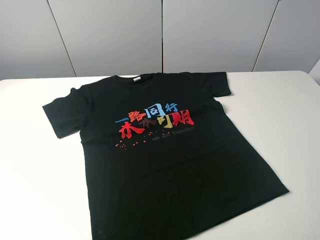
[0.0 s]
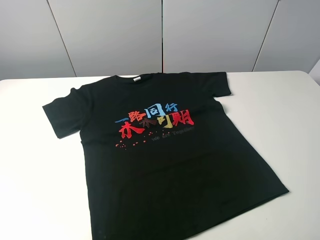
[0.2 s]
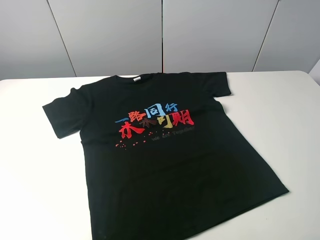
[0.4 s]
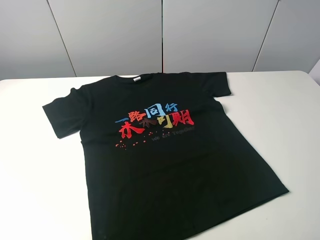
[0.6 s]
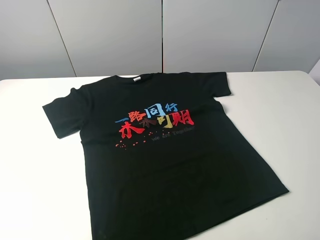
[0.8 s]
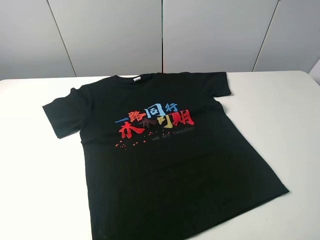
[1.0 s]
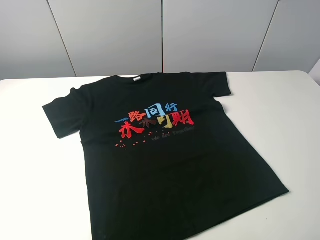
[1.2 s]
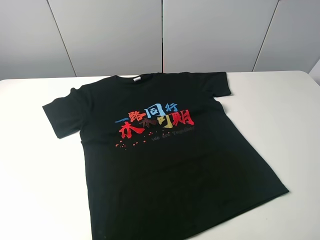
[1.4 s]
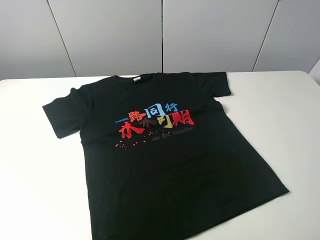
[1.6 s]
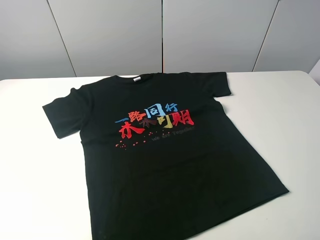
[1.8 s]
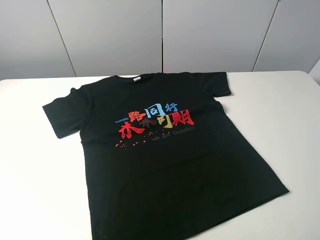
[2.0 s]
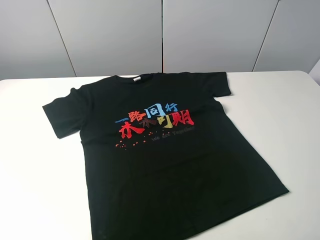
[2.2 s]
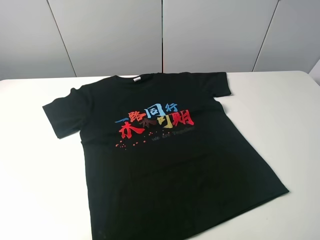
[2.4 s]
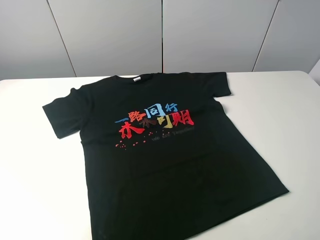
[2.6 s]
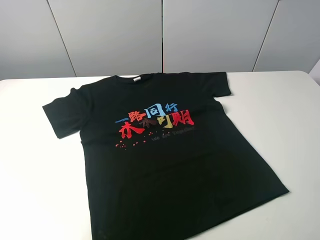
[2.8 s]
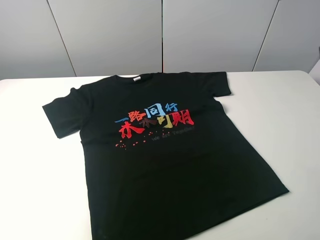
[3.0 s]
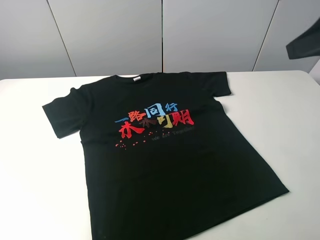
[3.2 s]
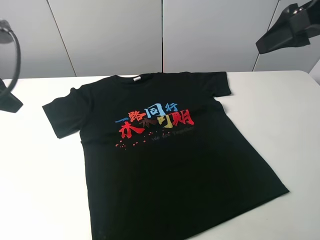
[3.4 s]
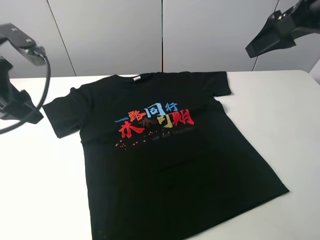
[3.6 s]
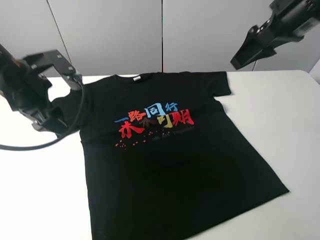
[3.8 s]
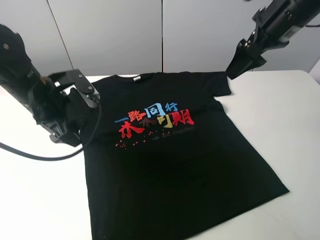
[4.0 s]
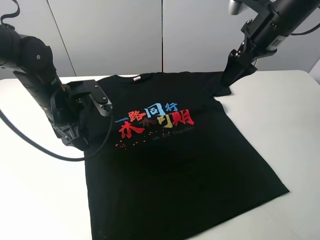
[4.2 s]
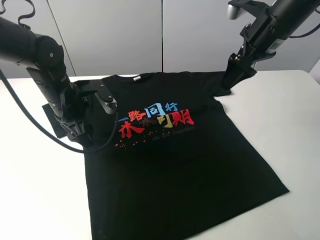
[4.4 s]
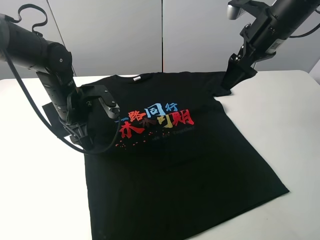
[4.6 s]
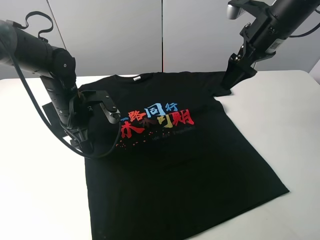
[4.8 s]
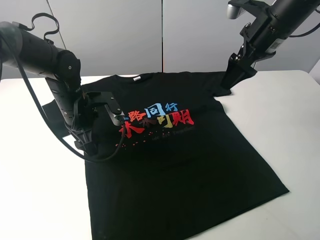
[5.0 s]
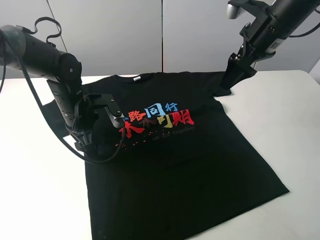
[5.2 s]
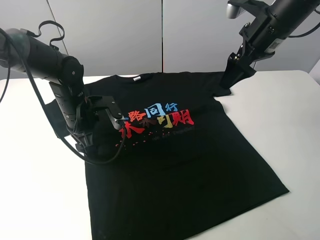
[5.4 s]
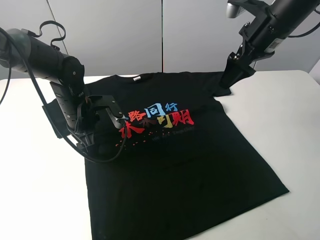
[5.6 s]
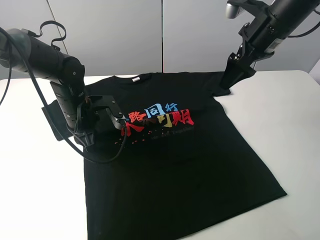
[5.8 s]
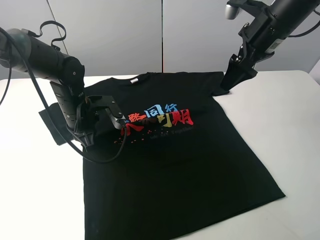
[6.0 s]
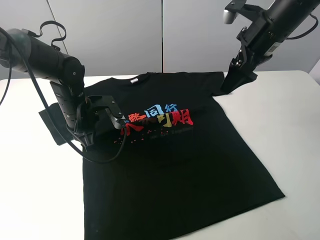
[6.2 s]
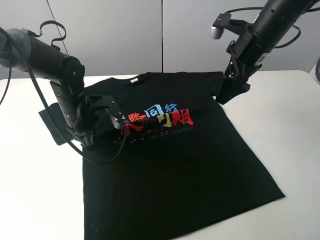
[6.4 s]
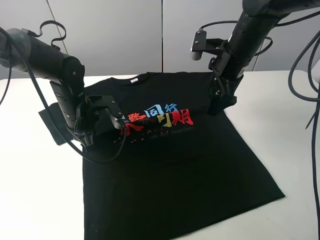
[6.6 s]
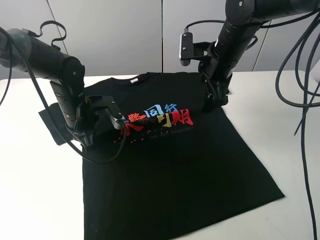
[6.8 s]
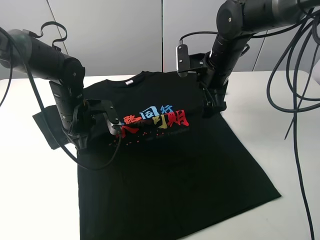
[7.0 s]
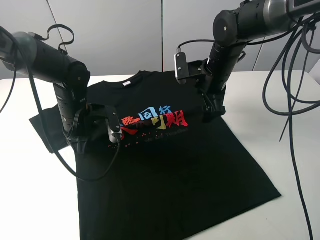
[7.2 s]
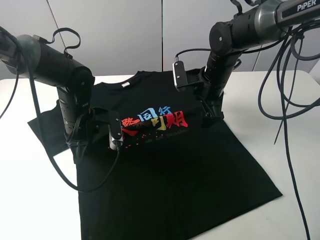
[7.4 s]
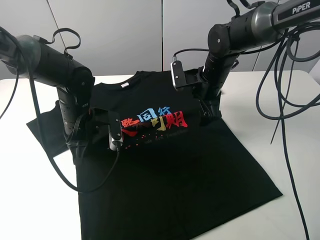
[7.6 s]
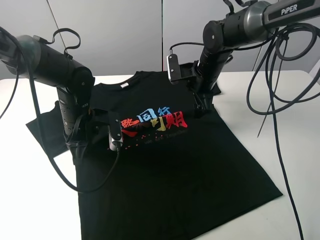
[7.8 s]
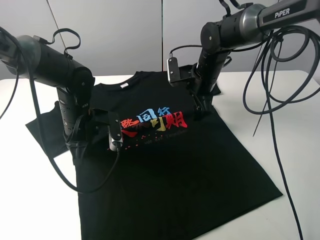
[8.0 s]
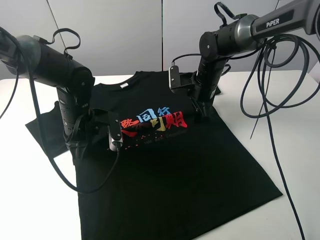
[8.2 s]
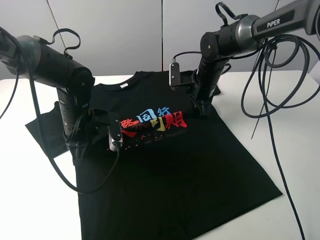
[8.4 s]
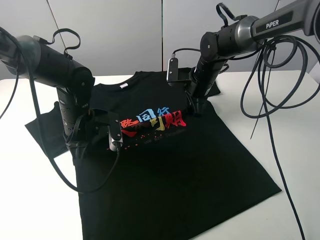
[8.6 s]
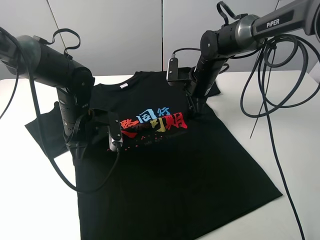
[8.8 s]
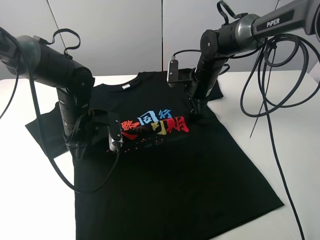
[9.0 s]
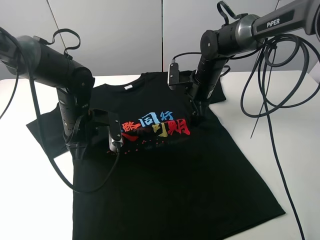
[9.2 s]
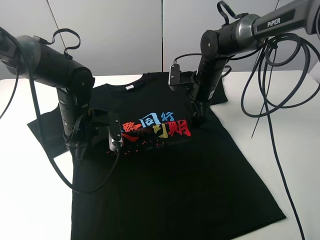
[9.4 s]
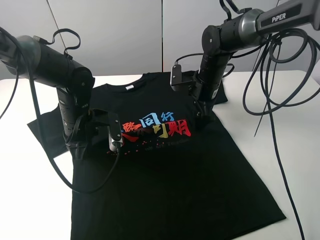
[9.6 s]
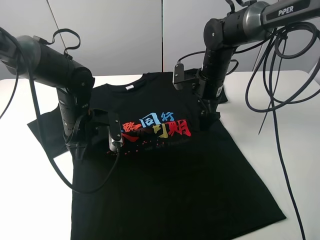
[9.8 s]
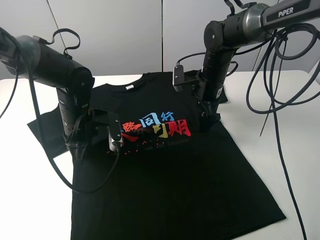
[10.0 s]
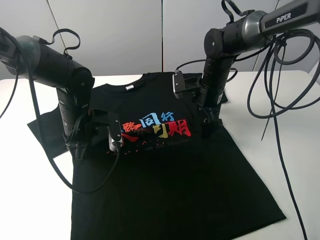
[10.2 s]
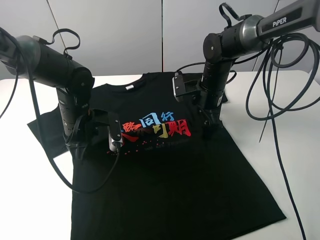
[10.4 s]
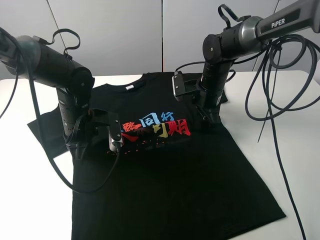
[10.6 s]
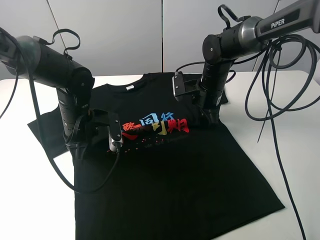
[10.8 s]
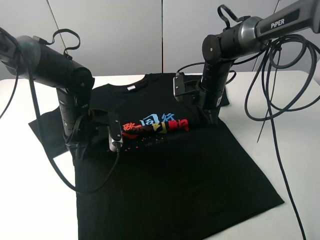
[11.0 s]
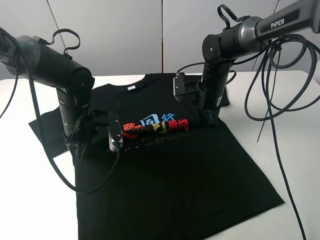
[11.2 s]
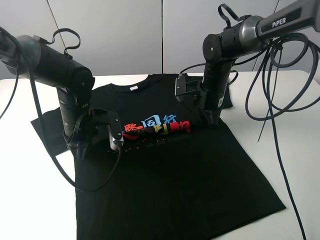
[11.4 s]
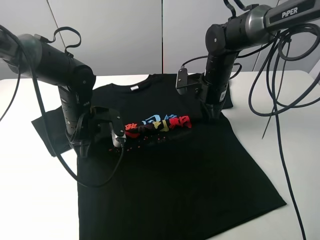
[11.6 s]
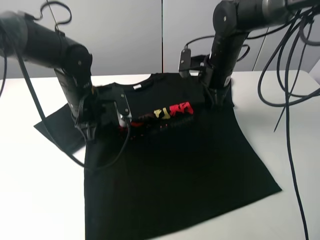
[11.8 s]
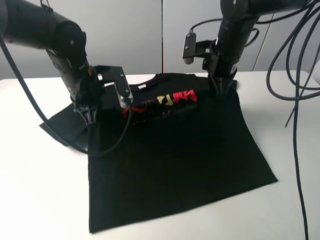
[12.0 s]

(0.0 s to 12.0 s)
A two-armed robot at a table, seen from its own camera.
Task of the whole recording: fold the clothes on the table.
Step, 0.0 s - 8.8 s: Lift the black T-shirt with the left gripper.
0.0 s - 1.6 s: Both grippers stay put.
3.0 s - 4.4 s: The right gripper heads forward and downward, covering approximately 25 cm; the left gripper goes about 30 cm downward, forward and to the right.
4.4 s - 6.0 s: The left gripper closes up.
6.0 s - 7.6 s: The right gripper moves downward and to the left, roughly 15 cm.
7.6 s - 9.0 s: The right gripper closes and opens again.
9.0 s - 10.4 s: The grippers make only small movements.
10.4 s - 12.0 s: Both grippers move upward, some 10 cm. The right gripper closes.

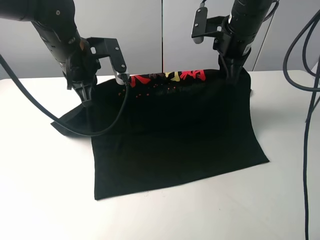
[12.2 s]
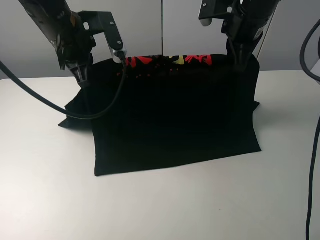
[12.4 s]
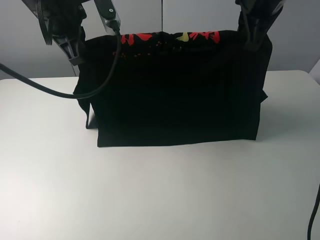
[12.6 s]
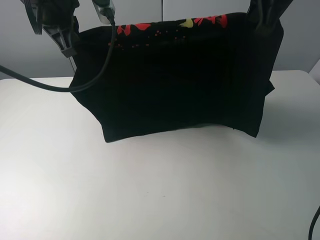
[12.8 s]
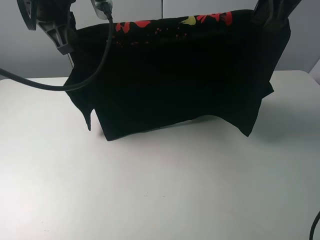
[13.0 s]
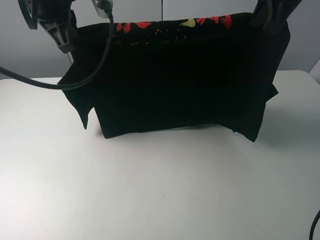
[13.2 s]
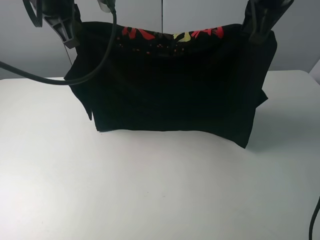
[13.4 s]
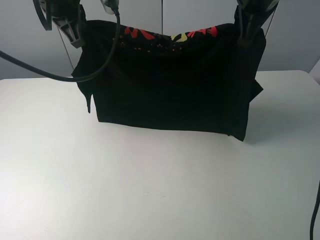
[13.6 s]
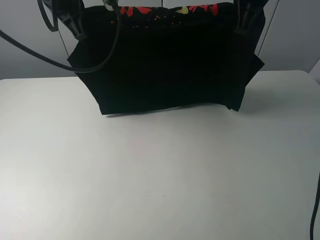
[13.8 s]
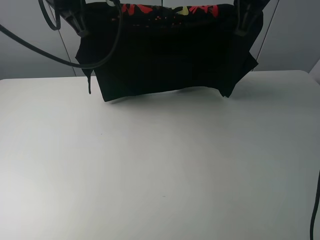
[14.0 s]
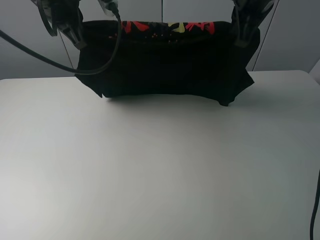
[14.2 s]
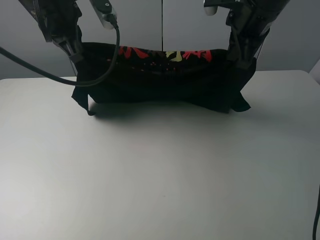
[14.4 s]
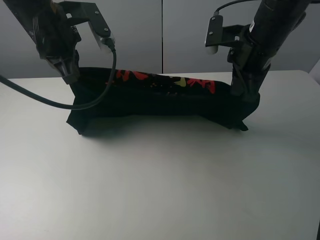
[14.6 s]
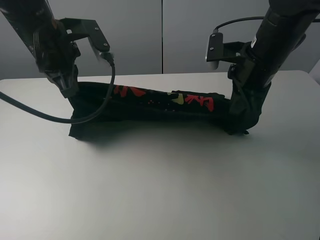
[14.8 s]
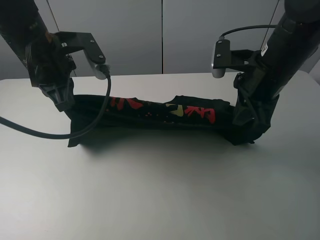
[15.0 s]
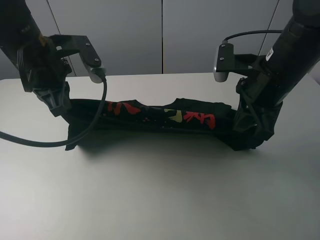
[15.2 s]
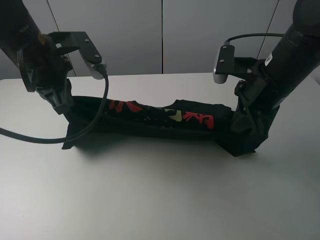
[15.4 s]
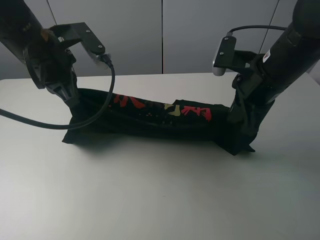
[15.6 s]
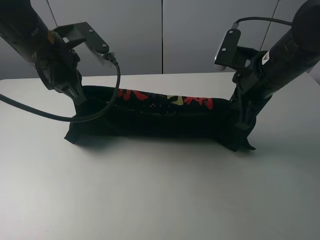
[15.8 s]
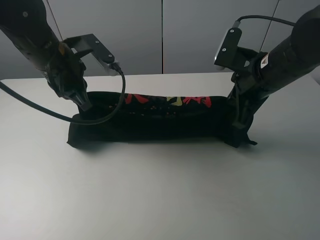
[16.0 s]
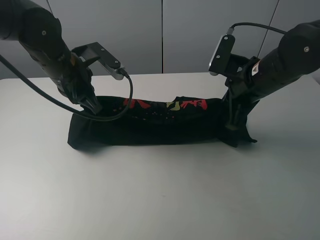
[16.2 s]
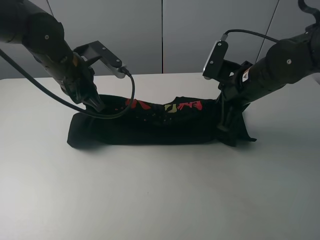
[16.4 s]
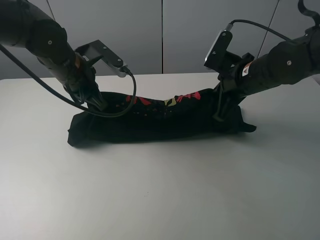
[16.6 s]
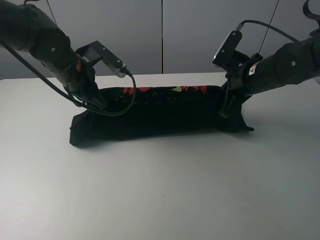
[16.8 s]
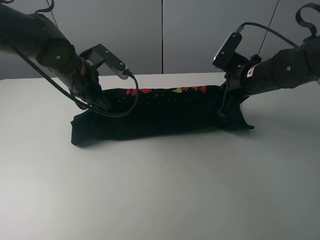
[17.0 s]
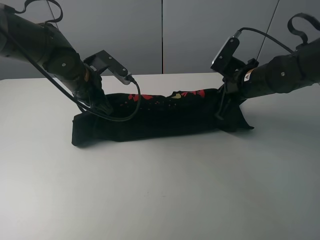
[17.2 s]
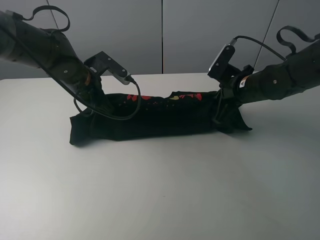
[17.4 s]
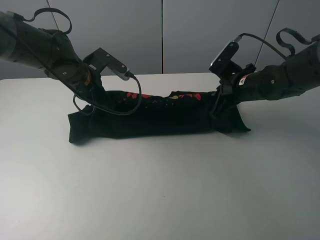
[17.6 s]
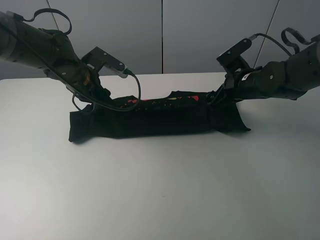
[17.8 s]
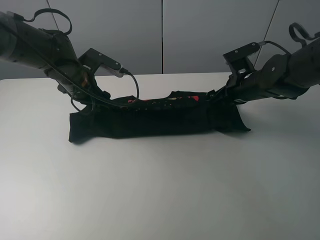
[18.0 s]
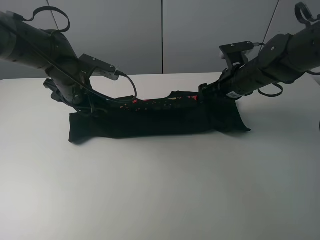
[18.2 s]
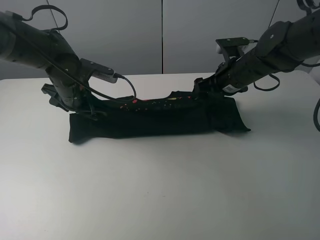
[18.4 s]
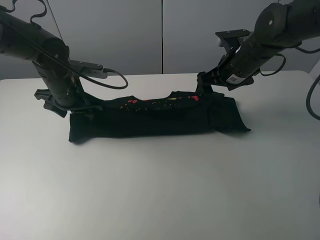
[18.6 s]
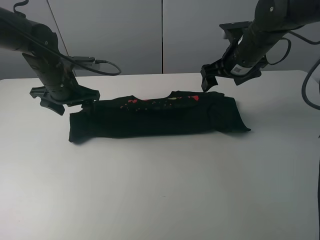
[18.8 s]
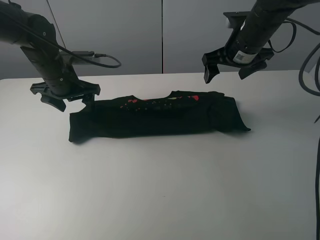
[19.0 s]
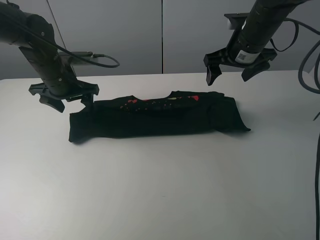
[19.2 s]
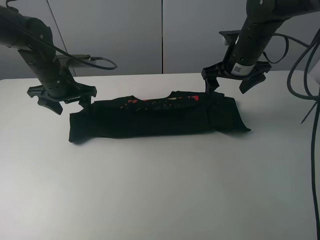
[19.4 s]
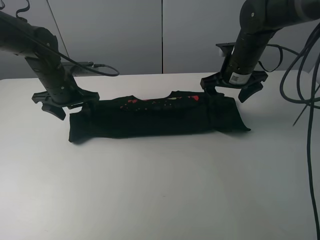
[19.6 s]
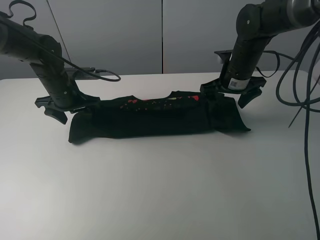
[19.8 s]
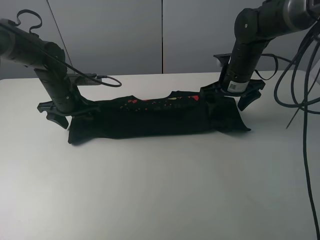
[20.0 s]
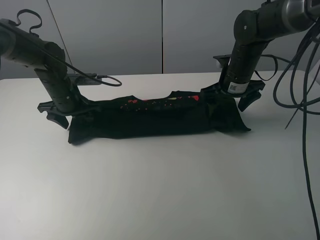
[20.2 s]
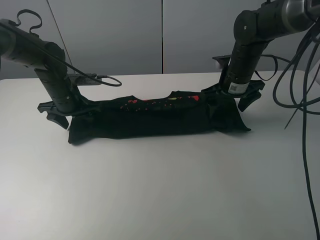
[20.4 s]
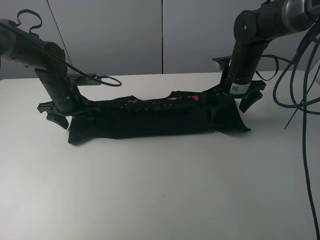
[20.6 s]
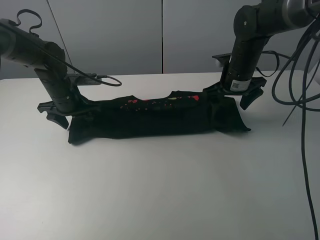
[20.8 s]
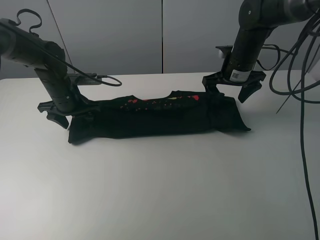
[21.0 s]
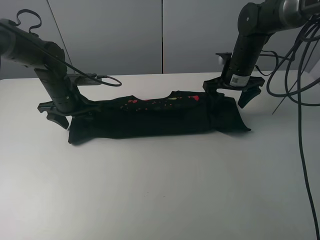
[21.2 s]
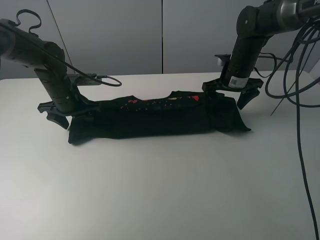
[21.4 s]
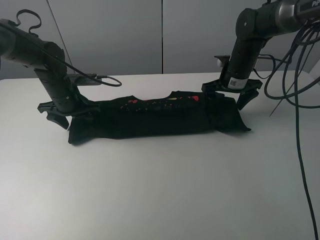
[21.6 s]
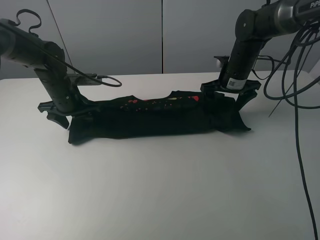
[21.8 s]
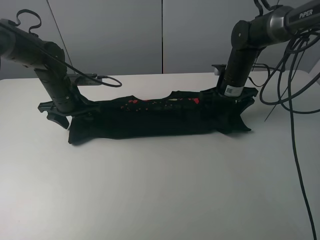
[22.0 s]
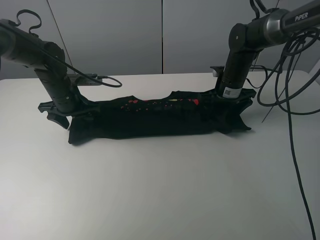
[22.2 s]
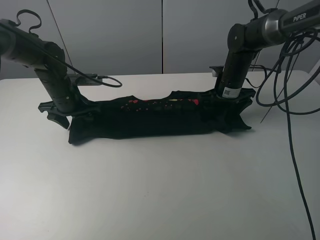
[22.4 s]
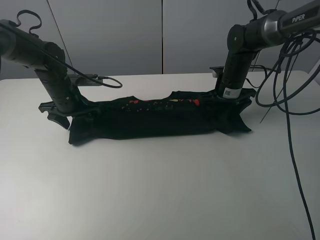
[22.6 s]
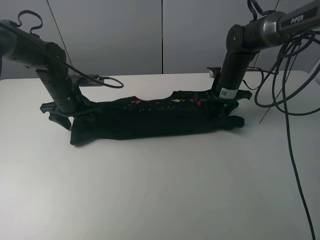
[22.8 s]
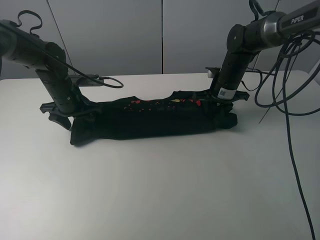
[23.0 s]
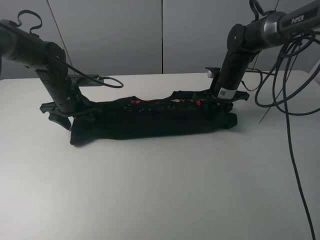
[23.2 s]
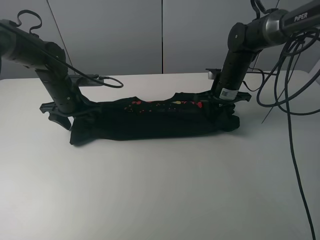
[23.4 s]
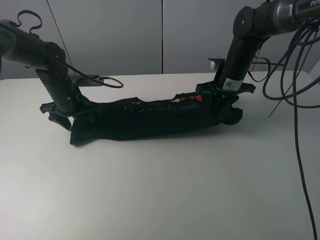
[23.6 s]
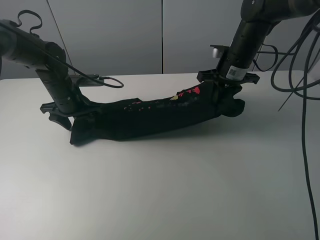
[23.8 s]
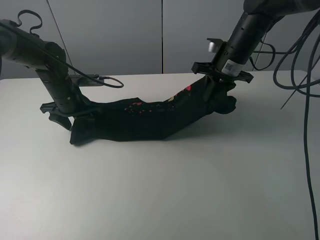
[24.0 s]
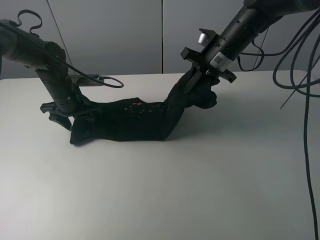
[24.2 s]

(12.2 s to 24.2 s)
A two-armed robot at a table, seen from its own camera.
Task of the whole recording: fold the clothes on the table.
Step, 12.2 s - 18.6 s: Fold the black T-shirt downward with the left gripper.
Step, 19.0 s - 22.8 s: Grasp the black T-shirt with the right gripper.
12.2 s - 13.8 s: The two grippers go some 10 cm upward.
13.8 s - 15.2 s: Both grippers move backward and downward, approximately 15 cm.
15.2 s - 16.6 s: The right gripper goes approximately 10 cm forward and downward; the left gripper is displaced downward and forward by roughly 10 cm.
16.6 s - 18.2 s: The right gripper opens up. Meanwhile the left gripper shifts by about 5 cm, and opens its fingers.
18.2 s - 19.8 s: The left gripper changes place by approximately 5 cm. Meanwhile the right gripper travels upward and back again, approximately 10 cm each way.
19.8 s - 21.2 s: The grippers make only small movements.
21.2 s - 22.6 s: The grippers stay close to where they were, moving slightly.
22.6 s - 24.2 s: The right gripper travels upward by about 10 cm, and closes its fingers.
